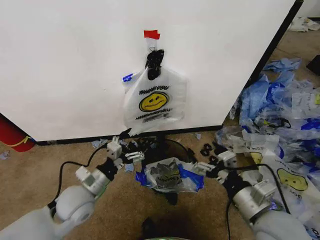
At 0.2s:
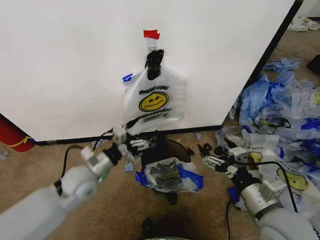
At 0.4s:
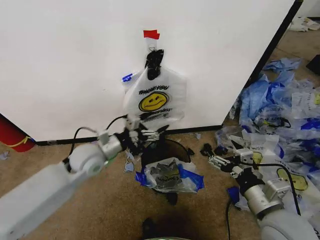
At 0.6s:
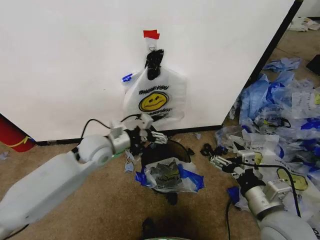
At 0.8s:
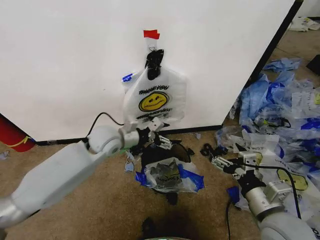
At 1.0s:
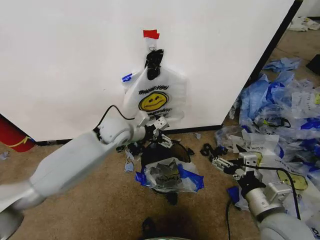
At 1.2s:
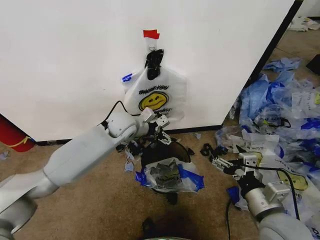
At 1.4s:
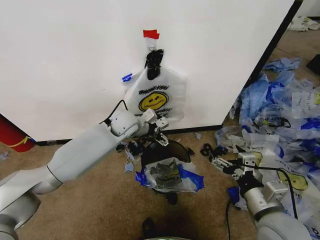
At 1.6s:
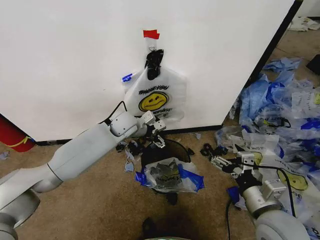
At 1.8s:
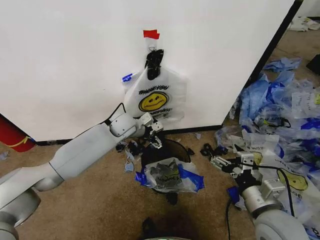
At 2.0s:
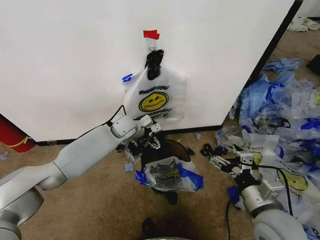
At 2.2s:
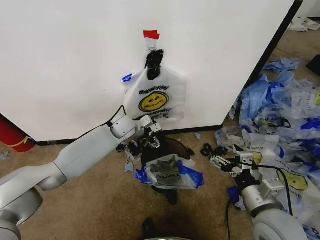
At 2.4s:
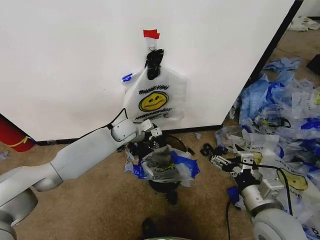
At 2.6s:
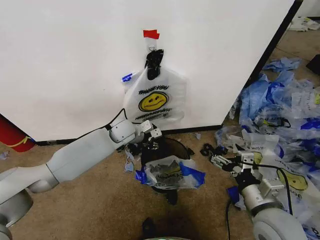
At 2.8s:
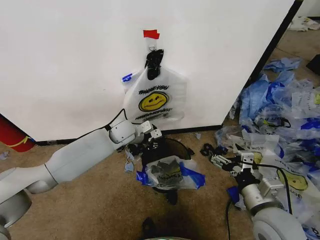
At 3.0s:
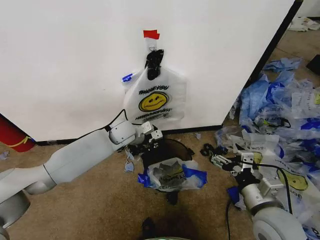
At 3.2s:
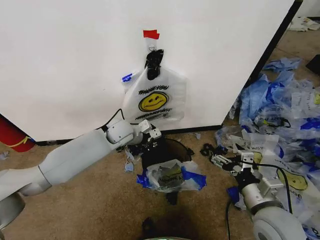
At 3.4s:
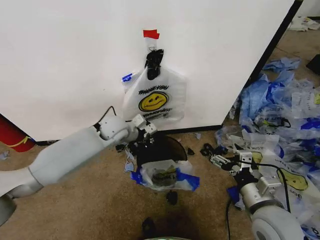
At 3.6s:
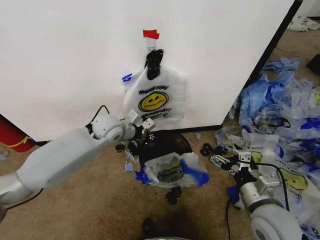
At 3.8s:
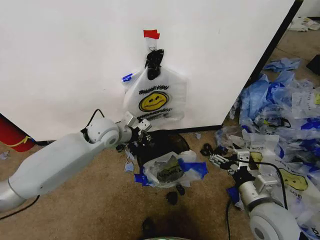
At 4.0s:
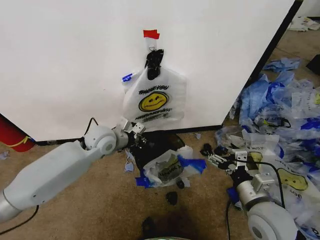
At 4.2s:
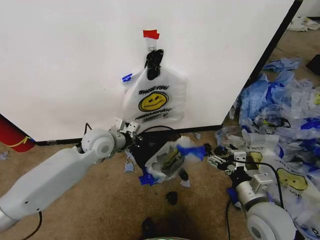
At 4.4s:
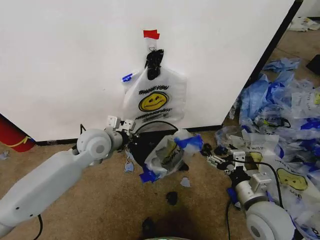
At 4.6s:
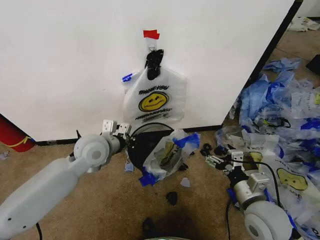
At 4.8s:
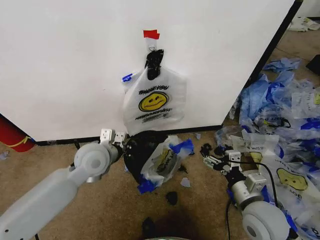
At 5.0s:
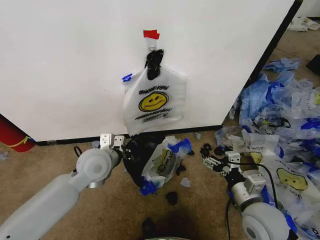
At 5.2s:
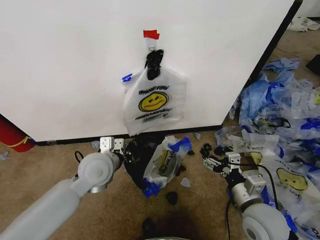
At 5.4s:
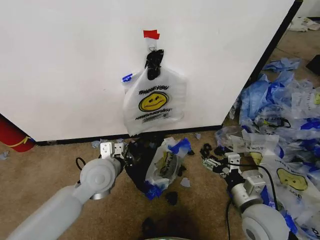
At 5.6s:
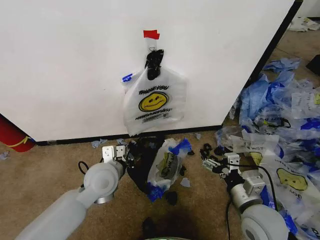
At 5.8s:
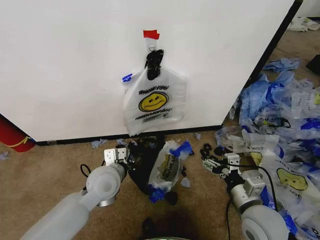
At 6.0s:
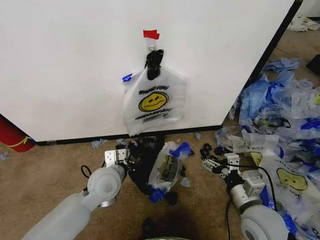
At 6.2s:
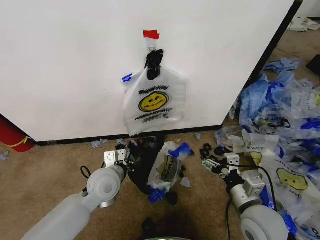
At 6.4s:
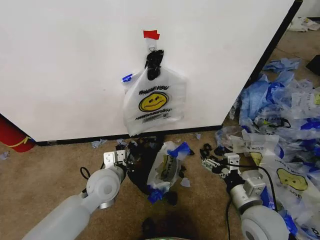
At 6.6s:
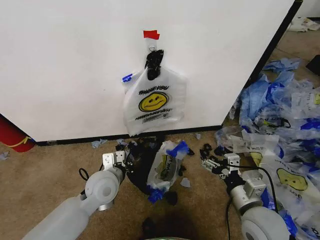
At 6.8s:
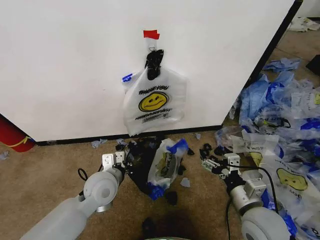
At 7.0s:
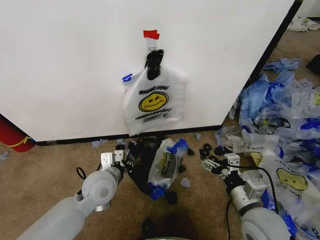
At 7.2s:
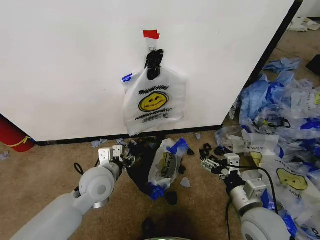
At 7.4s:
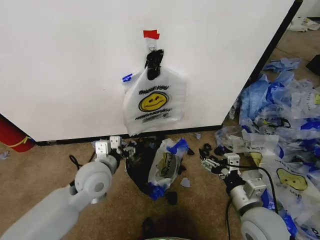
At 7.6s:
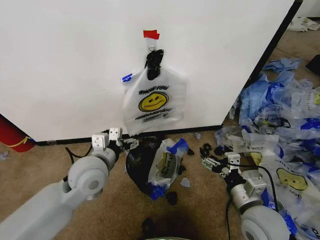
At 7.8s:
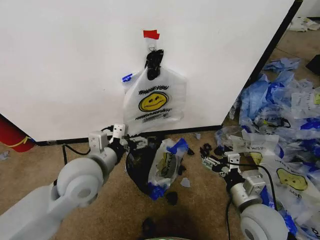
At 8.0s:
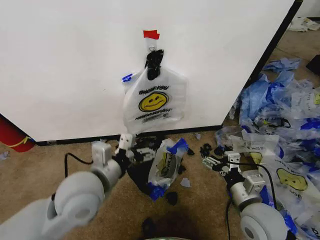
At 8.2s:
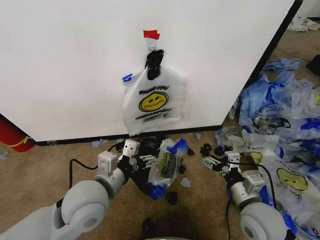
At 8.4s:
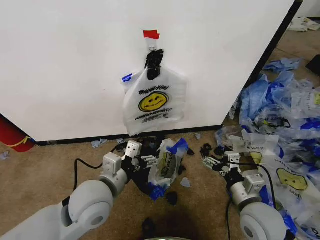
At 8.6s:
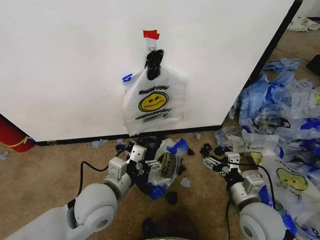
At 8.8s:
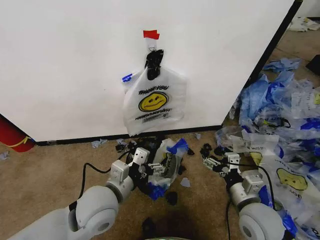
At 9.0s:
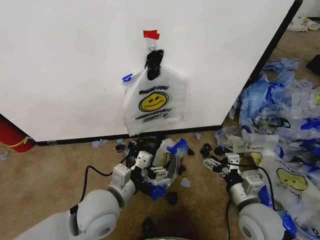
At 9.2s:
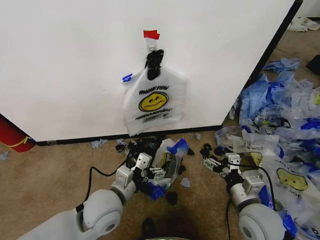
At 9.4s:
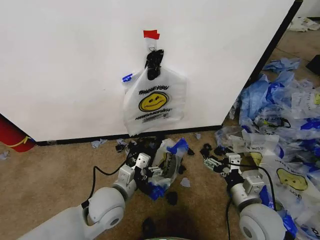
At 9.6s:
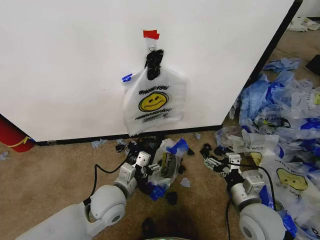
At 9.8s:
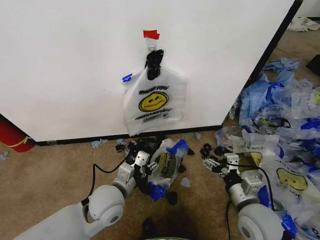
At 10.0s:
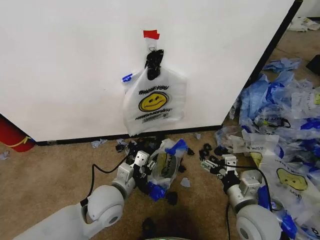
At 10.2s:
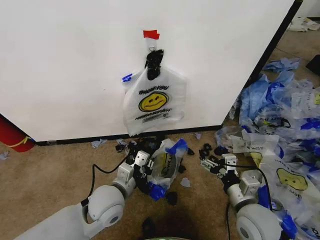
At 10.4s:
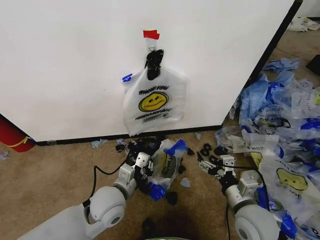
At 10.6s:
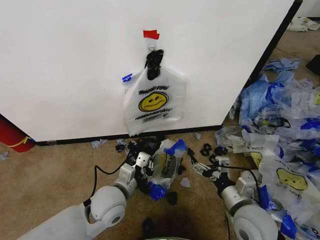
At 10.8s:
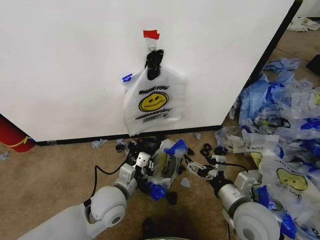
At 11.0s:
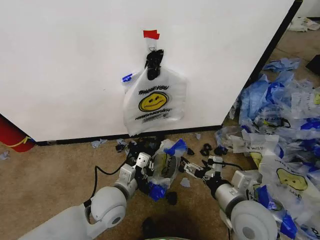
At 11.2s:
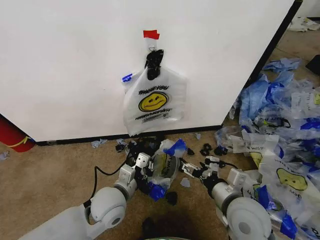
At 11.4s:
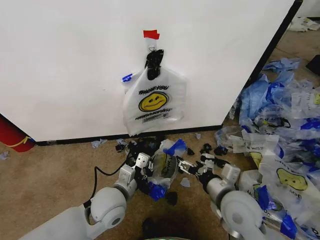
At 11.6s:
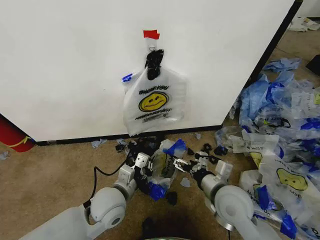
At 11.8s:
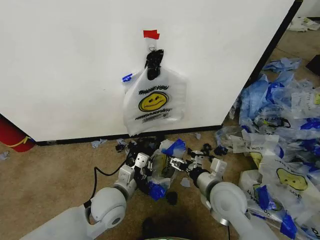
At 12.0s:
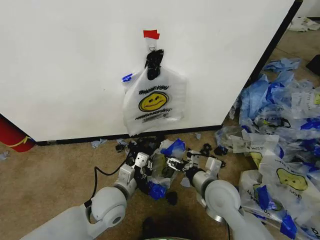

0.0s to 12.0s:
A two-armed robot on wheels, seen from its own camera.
Task of the whole recording: Pick up the garbage bag from the wall and place it over the trash bin.
0.0s to 1.6s: The left gripper shifts approximately 25 cm forward and to the right.
1.6s to 3.0s: The left gripper closes up.
3.0s to 4.4s: The left gripper travels backward and to the left by some 10 cm.
4.4s to 6.0s: The left gripper travels backward and downward by some 10 cm.
6.0s to 7.6s: The left gripper is displaced upward by some 5 cm, and opens its fingers.
7.6s to 9.0s: The left gripper moves backward, some 10 cm.
9.0s to 10.4s: The left gripper heads downward, covering approximately 5 cm, and closes up.
10.4s to 12.0s: The right gripper heads to the left and forward, covering some 10 cm.

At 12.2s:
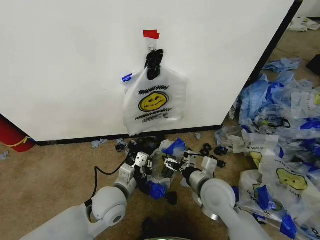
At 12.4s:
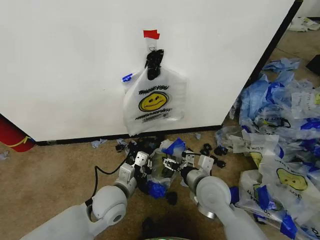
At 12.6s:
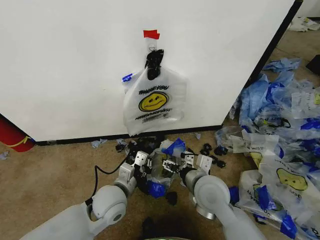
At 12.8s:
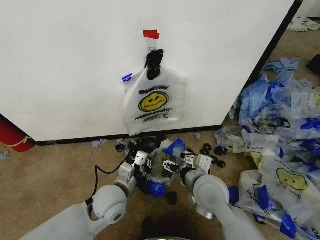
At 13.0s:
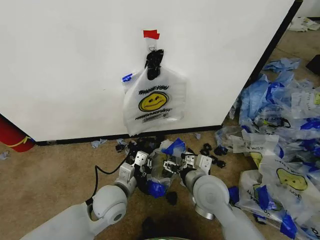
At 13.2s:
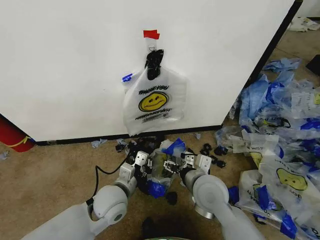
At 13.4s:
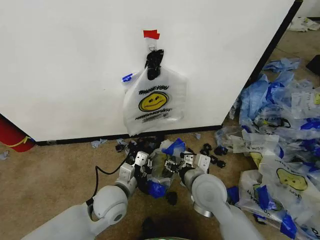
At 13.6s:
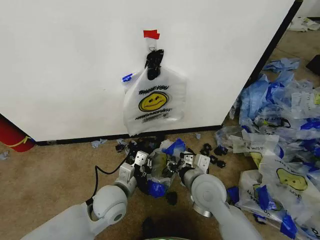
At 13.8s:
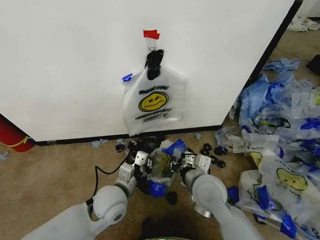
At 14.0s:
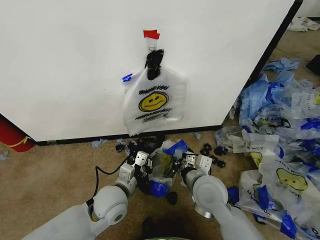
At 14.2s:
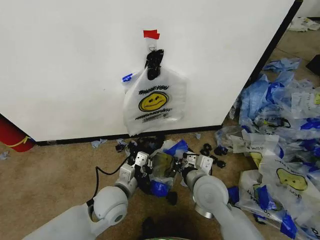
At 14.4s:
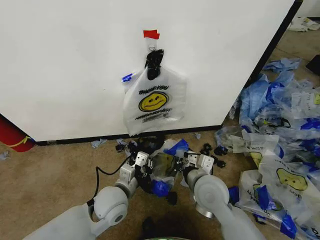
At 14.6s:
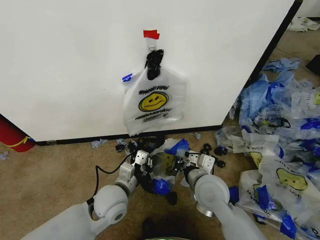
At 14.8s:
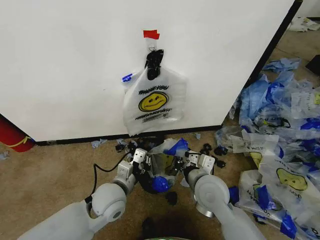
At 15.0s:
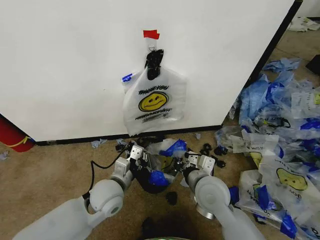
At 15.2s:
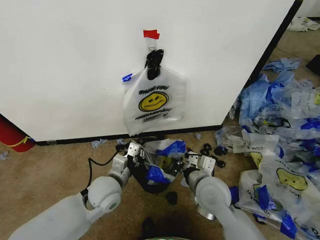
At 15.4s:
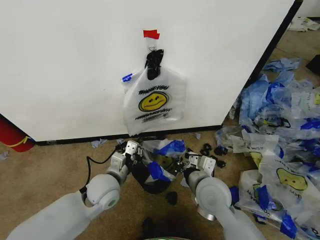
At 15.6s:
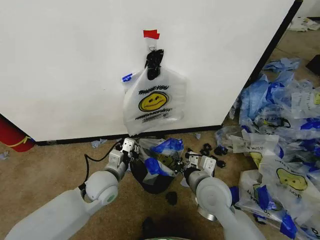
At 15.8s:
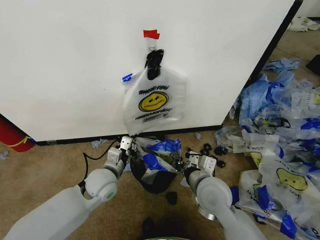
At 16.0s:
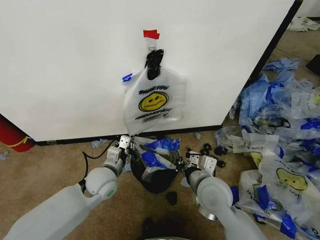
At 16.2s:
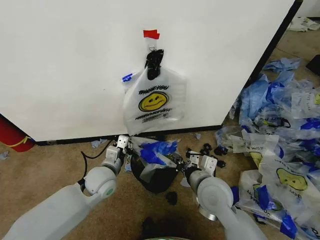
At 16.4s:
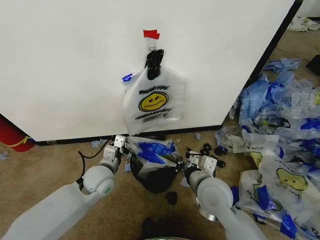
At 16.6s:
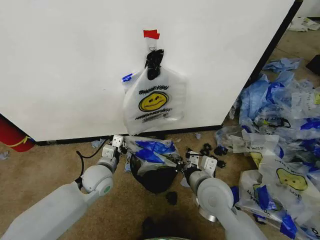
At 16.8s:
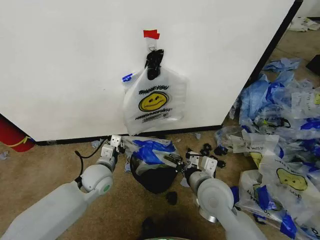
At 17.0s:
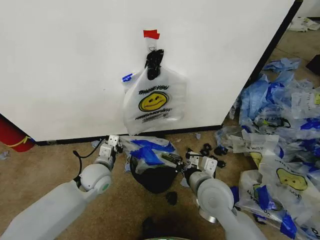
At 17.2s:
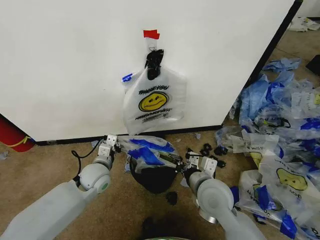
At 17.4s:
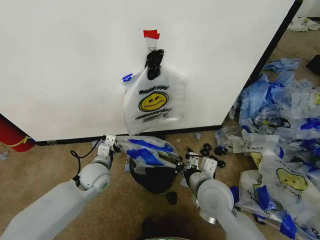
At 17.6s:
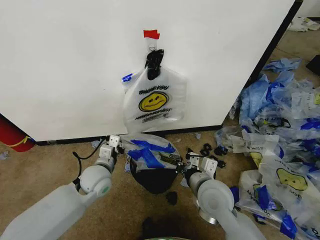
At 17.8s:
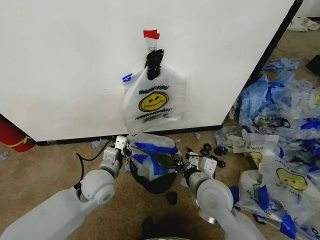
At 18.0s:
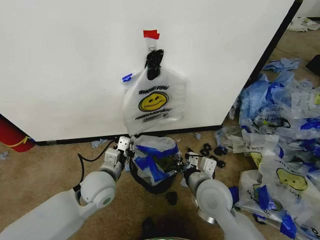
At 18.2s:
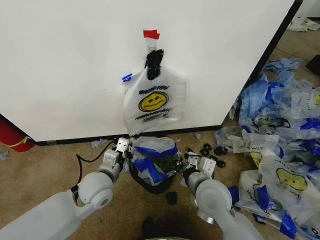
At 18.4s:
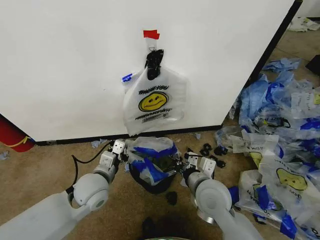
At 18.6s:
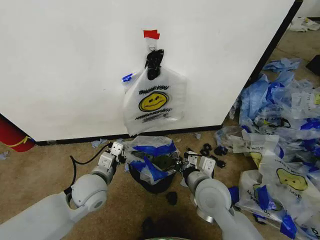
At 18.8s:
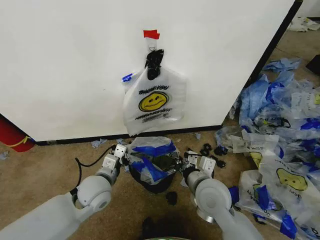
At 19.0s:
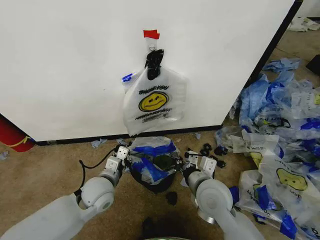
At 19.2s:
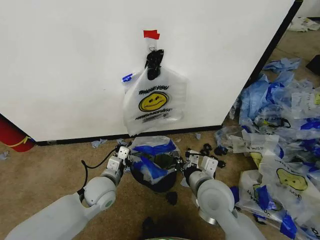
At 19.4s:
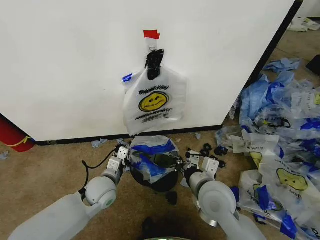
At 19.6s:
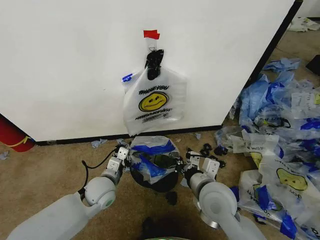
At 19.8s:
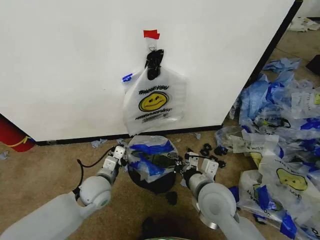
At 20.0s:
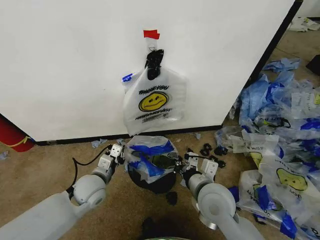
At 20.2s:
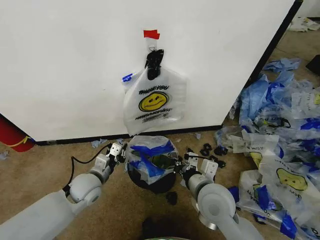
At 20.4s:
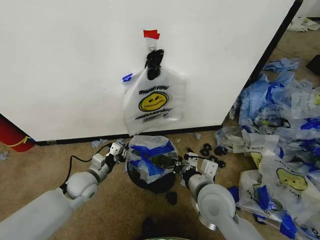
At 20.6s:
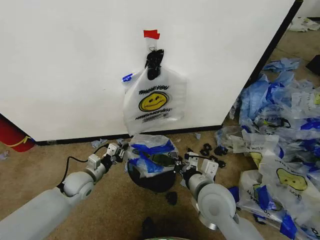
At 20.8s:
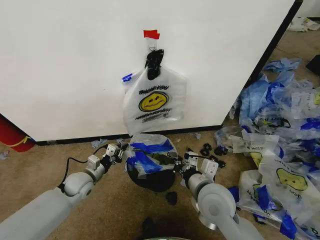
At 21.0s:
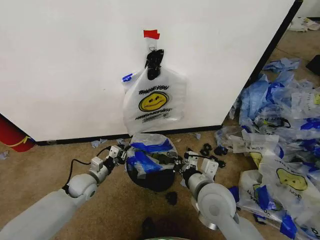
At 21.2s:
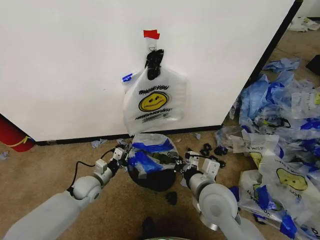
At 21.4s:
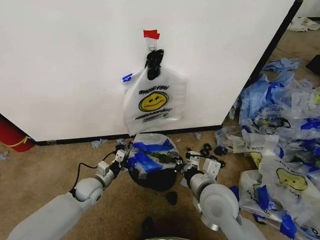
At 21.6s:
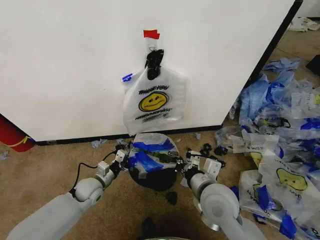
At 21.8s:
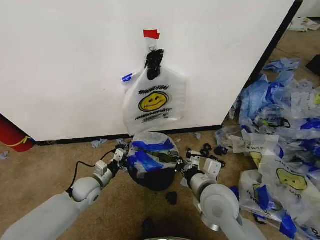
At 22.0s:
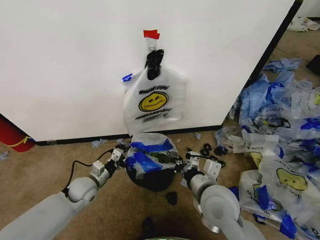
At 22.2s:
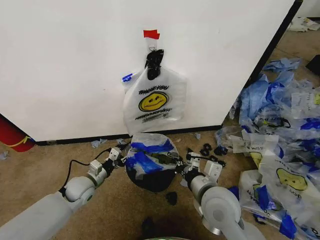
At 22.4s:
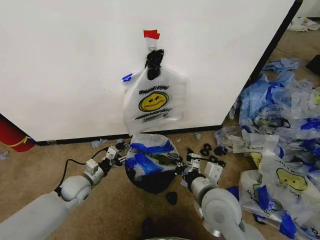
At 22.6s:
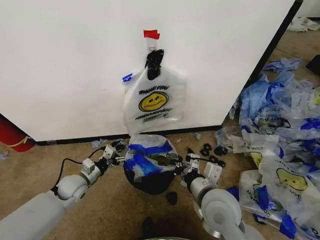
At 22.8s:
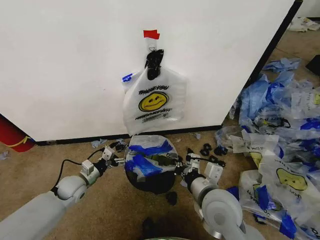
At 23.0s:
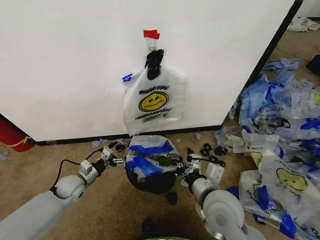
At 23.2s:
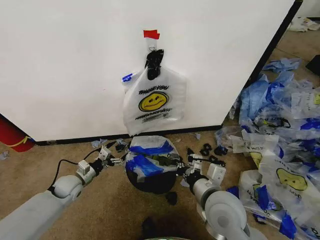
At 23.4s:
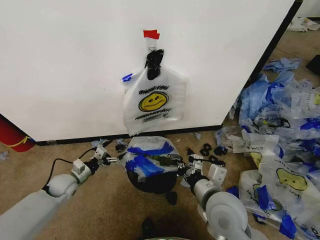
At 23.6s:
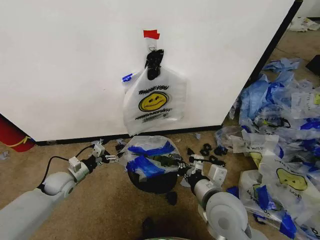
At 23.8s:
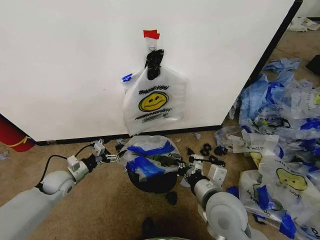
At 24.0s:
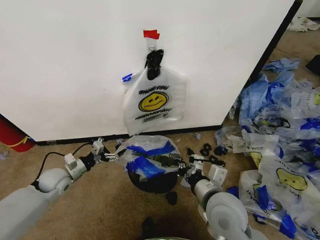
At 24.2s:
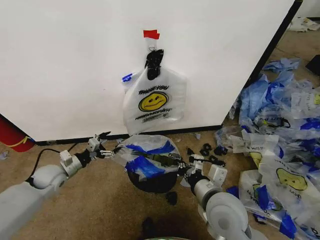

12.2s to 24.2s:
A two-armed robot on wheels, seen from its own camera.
Task of the whole recording: Pick up the garbage bag from the wall and place it over the trash bin.
12.2s to 13.8s: The right gripper closes.
13.8s to 15.2s: The grippers stay close to where they were, moving slightly.
15.2s to 16.6s: The left gripper goes some 5 cm forward.
16.6s to 18.2s: The left gripper ends up about 5 cm from where it was.
18.2s to 19.8s: The left gripper shifts about 5 cm downward.
19.8s to 21.2s: The left gripper goes about 10 cm to the left and downward.
21.2s to 22.6s: The left gripper opens.
22.6s to 24.2s: The left gripper is displaced to the left by roughly 10 cm.
